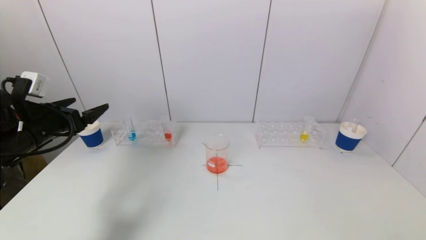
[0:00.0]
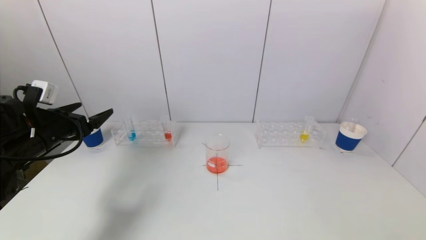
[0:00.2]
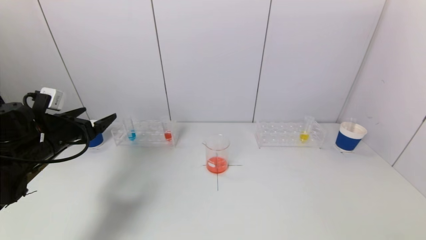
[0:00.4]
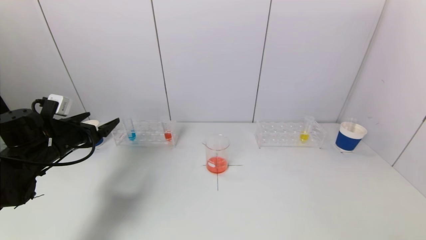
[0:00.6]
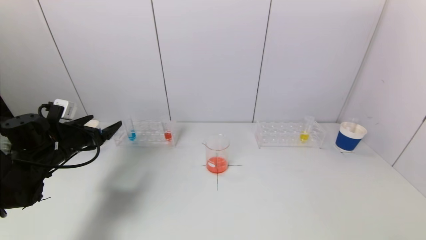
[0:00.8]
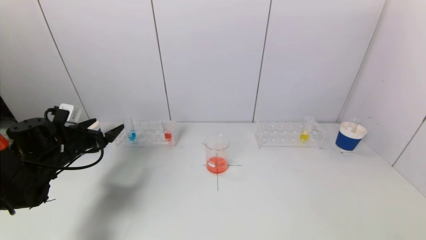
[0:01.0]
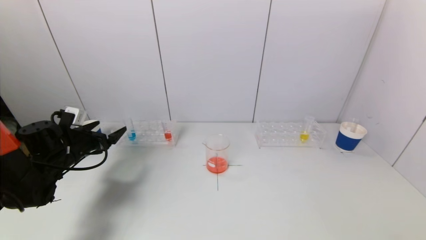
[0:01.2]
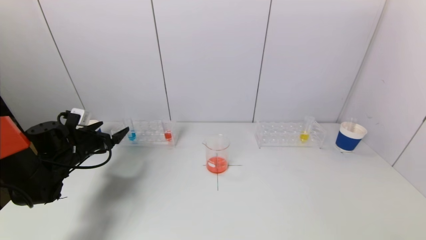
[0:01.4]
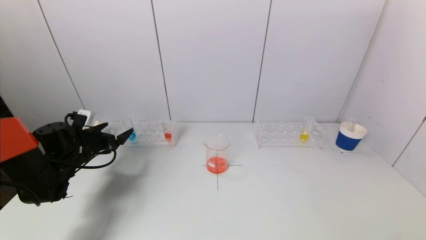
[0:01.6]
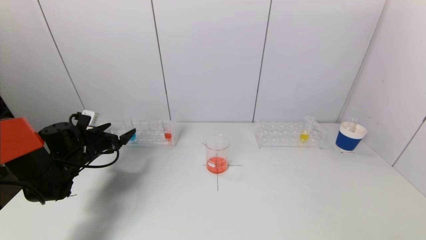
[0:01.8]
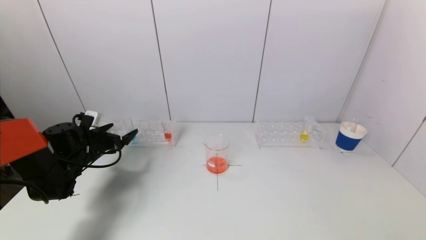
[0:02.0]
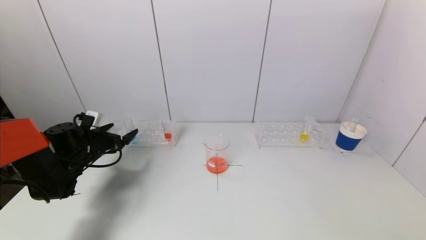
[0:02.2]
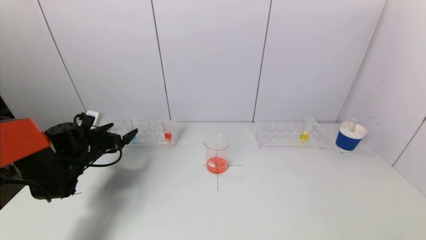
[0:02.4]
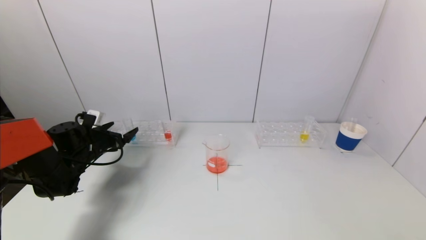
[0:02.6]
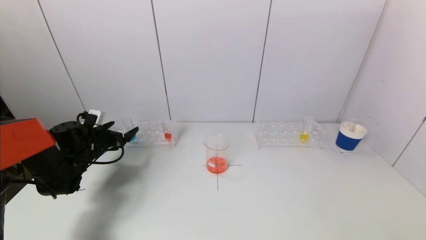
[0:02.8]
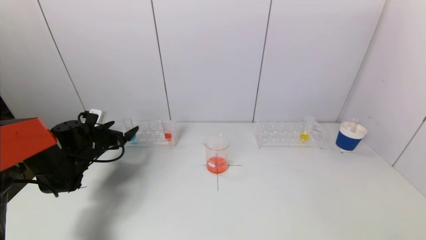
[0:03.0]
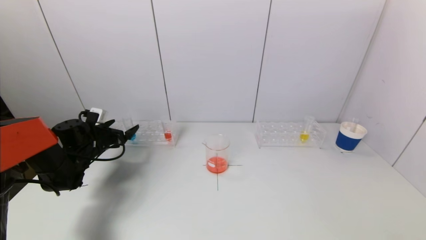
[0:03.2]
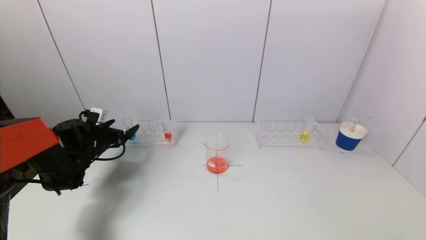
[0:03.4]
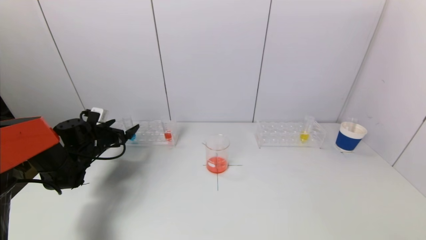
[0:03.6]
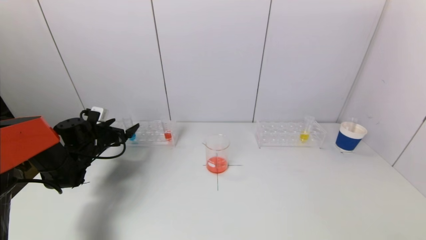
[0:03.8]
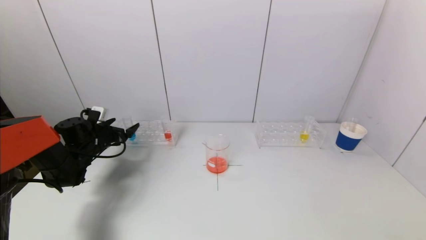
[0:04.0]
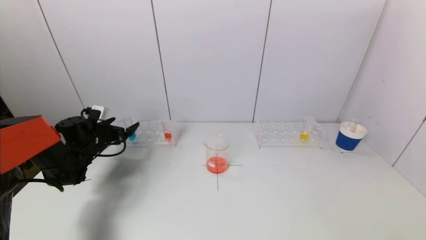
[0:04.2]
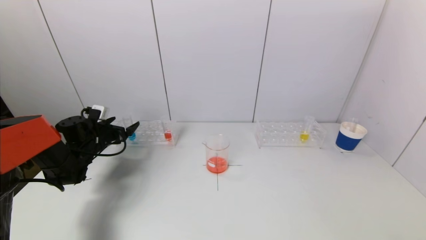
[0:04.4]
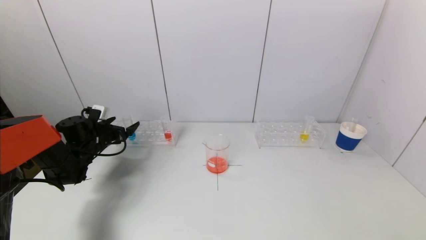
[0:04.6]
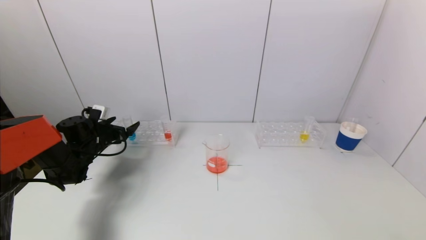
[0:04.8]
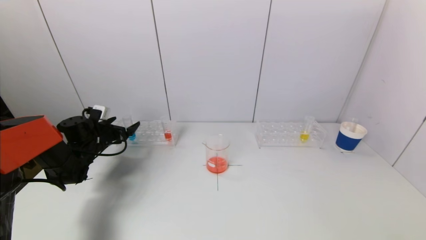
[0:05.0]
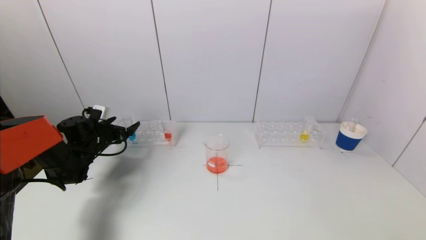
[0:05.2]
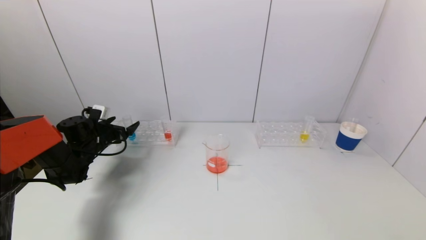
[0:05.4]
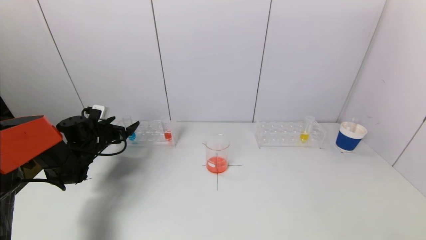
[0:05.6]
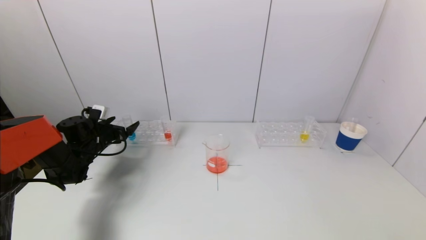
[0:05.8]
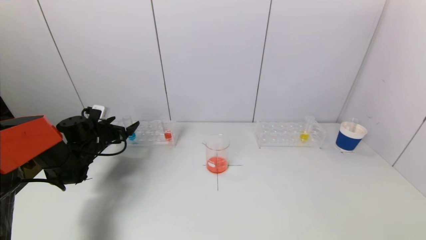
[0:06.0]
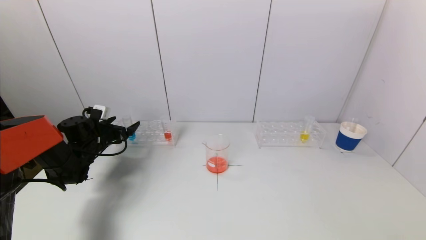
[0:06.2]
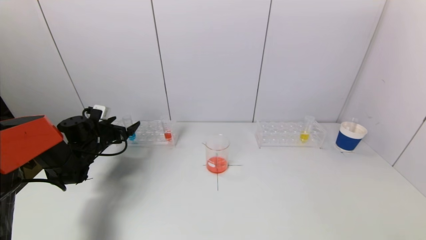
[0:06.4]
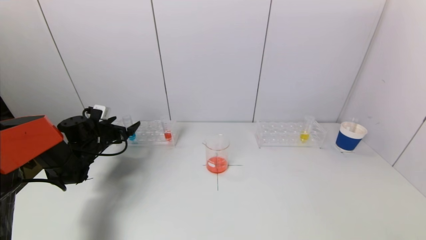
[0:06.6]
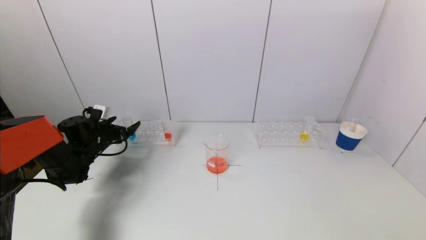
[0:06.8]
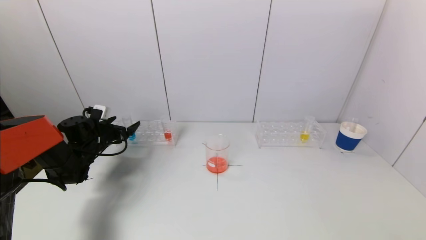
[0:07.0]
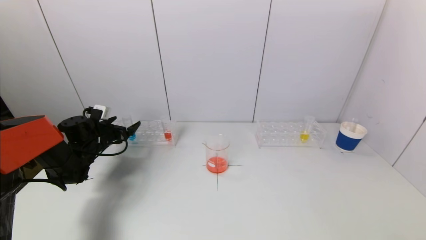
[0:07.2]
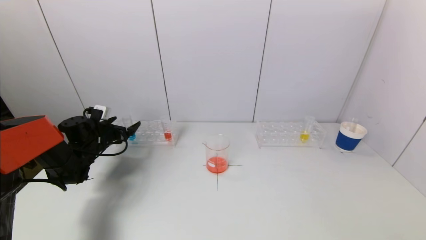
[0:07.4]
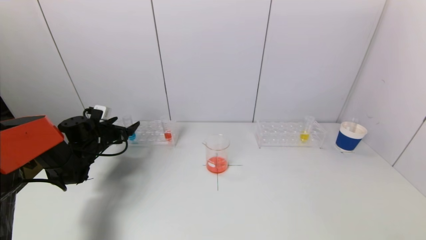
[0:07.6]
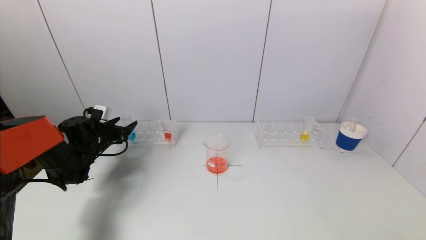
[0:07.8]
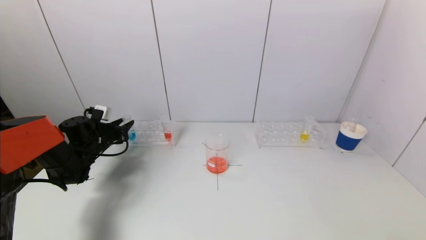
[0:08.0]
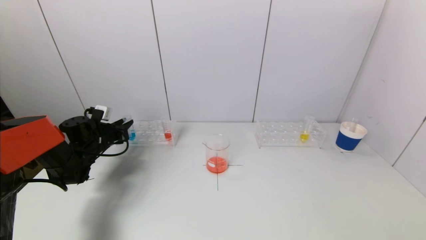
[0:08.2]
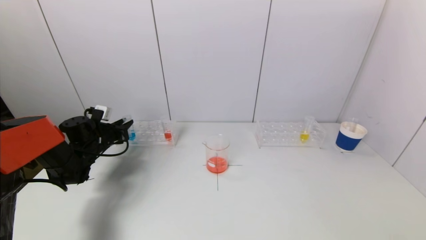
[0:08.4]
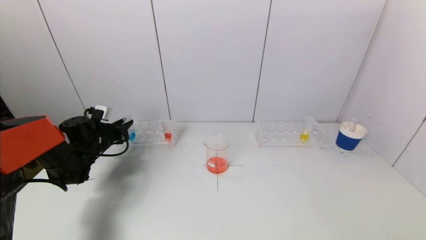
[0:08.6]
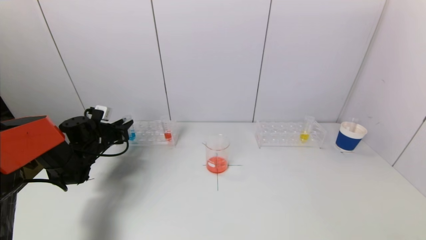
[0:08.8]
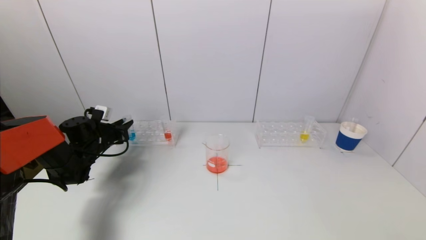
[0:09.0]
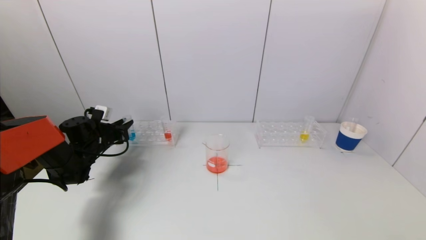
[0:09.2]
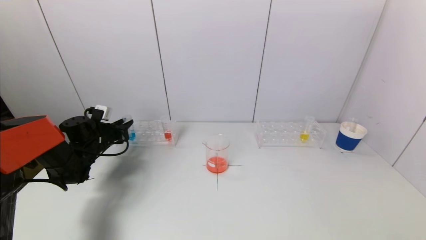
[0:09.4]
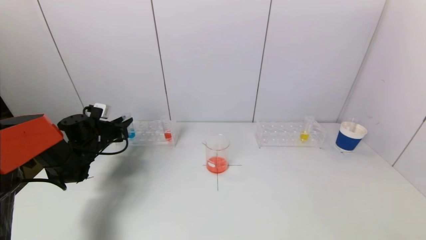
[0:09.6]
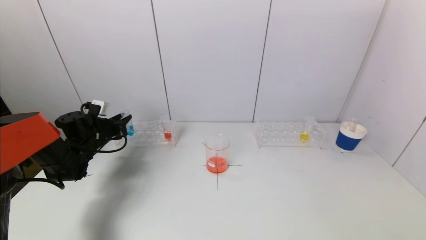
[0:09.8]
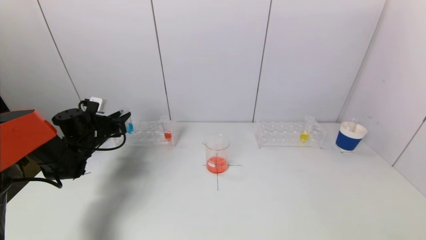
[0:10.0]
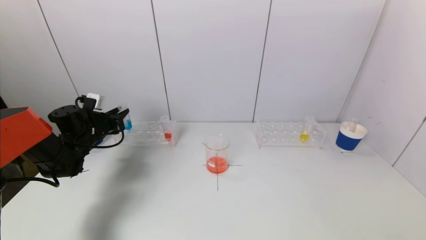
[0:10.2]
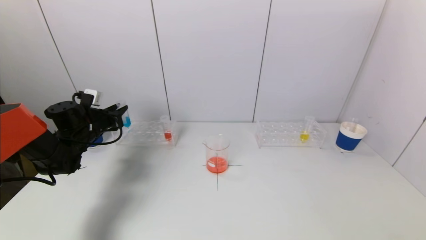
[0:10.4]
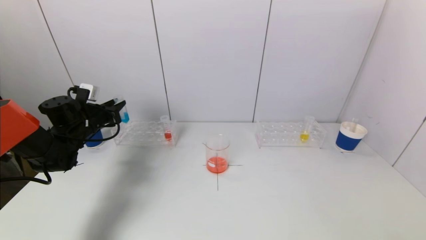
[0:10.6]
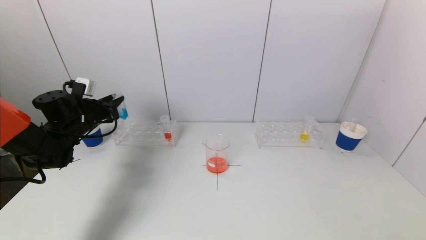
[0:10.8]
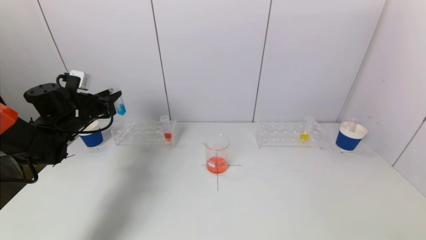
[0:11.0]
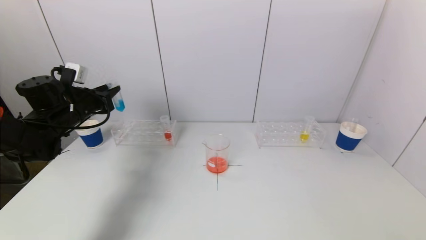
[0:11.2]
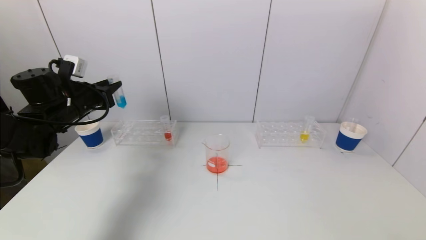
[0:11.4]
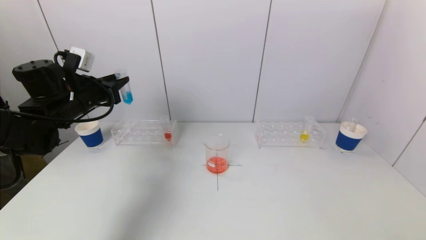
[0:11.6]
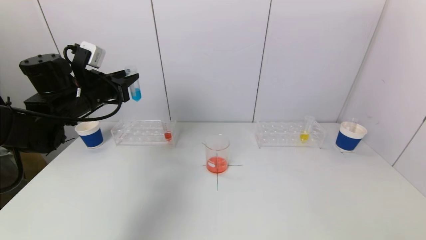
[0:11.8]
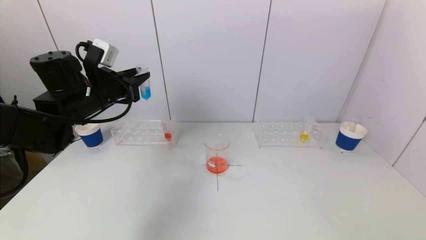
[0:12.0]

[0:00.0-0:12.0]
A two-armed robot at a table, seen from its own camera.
Task of the whole recording: pick up a test tube with pigment on left test tube rack and a test tube with pigment on right test tube rack by grippers and pour them into the beaker.
Step, 0:00.0 to 0:08.2: Grasp the blue reagent with the left gripper.
0:00.0 to 0:01.6: The left gripper travels downward and forward by about 15 cm.
0:01.6 to 0:04.4: There are only small adjustments of the grippers.
0:04.4 to 0:07.6: Both grippers stay about where they are.
0:07.6 to 0:09.0: The left gripper closes up.
0:09.0 to 0:10.4: The left gripper is displaced upward by approximately 5 cm.
0:10.4 to 0:12.0: The left gripper travels upward, to the right and backward by about 15 cm.

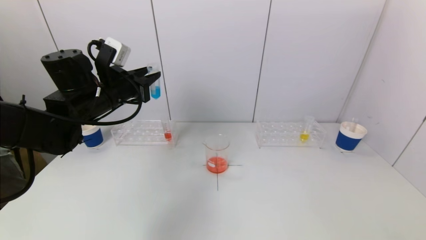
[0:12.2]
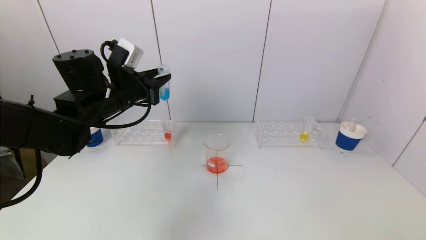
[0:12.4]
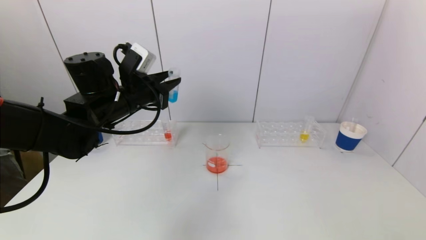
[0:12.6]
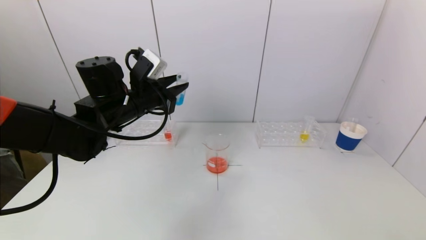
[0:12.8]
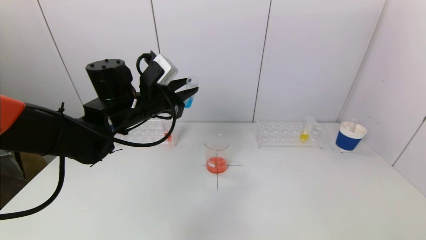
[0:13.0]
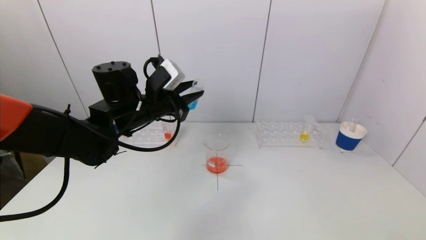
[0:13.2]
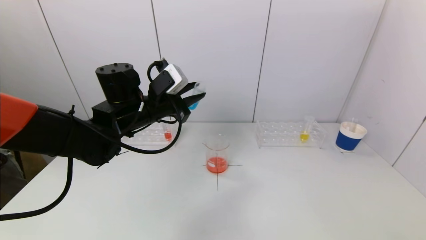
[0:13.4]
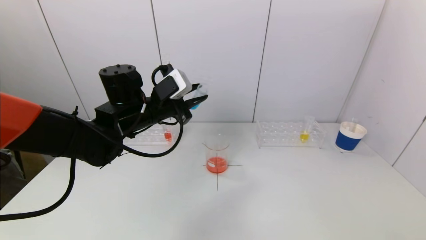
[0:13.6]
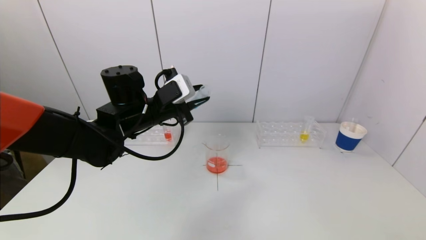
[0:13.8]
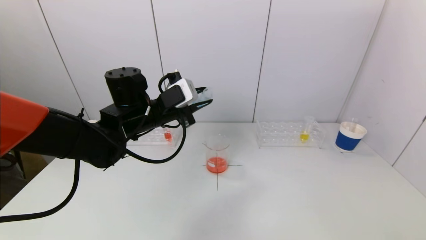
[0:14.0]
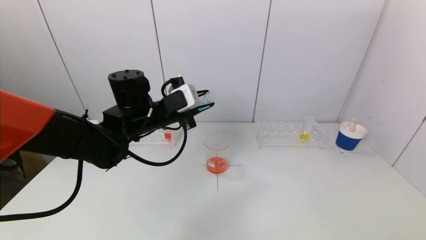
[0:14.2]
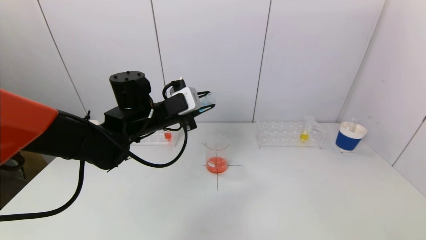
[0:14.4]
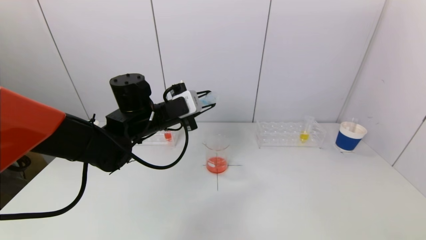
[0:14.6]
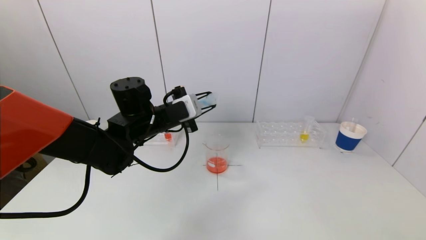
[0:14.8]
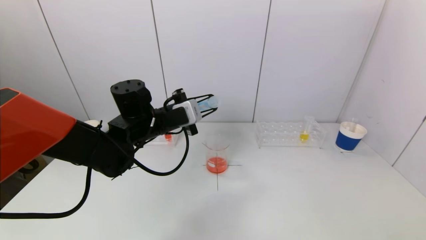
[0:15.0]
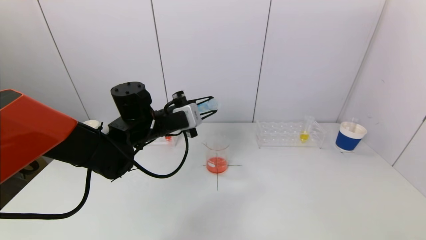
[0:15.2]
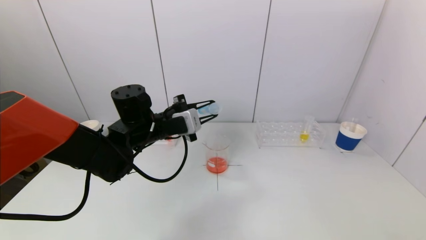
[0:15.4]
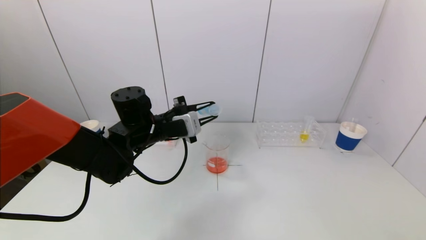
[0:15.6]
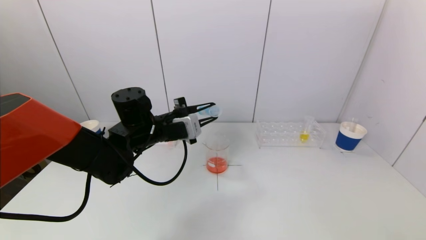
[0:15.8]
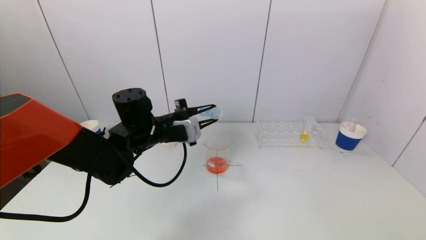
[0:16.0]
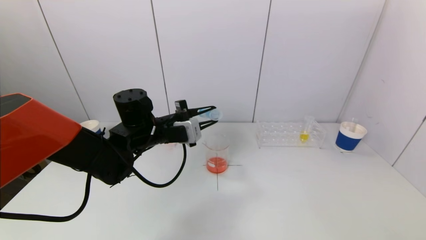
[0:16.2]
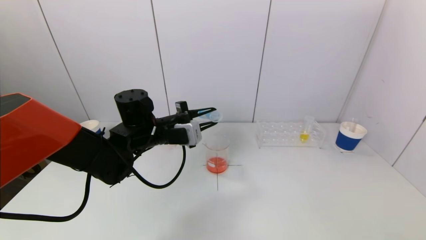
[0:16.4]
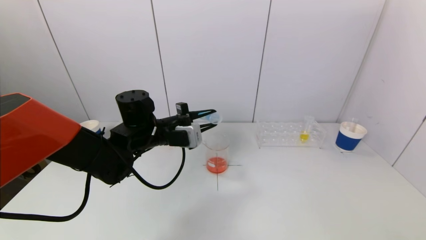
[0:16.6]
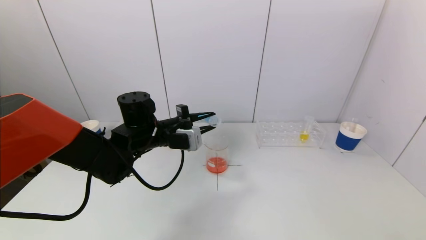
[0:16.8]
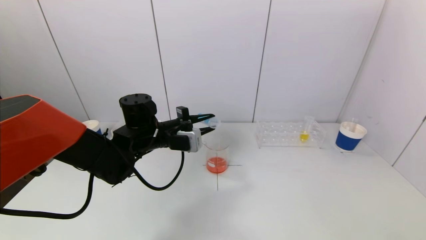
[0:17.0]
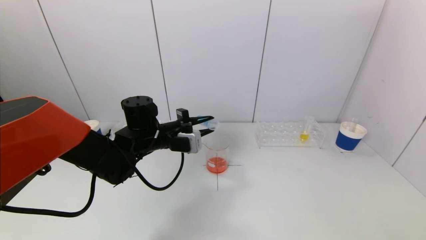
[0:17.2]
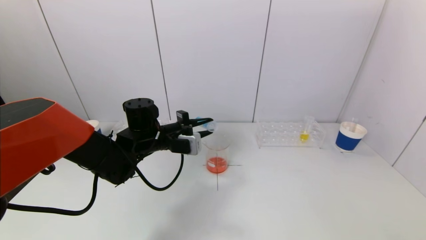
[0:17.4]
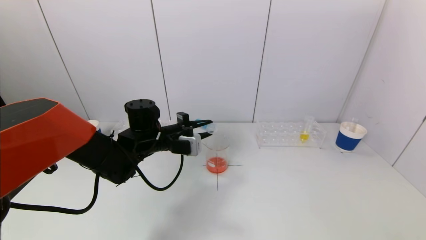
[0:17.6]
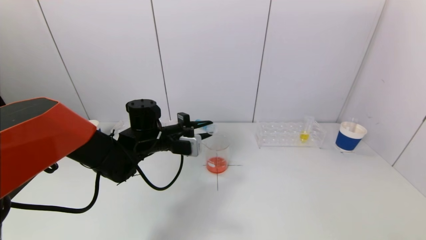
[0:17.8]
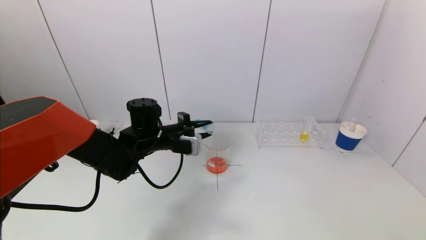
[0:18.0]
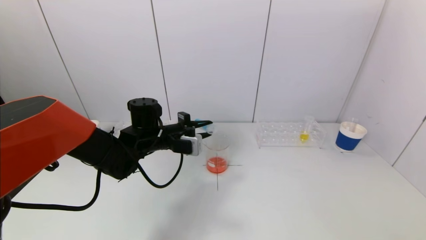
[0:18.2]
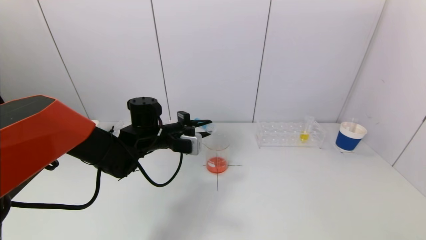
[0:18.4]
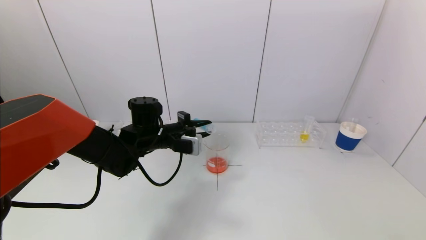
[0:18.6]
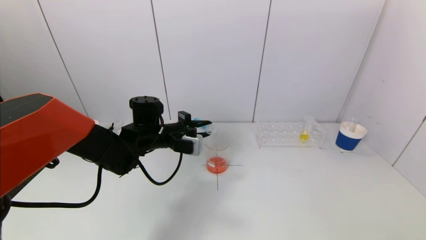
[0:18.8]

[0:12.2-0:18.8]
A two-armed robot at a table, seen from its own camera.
Task of the whole recording: pick up a test tube with pigment on left test tube rack and a test tube with pigment on right test tube rack by grippers and pour them into the beaker.
0:12.2 to 0:13.8: The left gripper is displaced to the right by approximately 10 cm.
0:13.8 to 0:15.4: The grippers stay close to where they were, moving slightly.
0:15.4 to 0:18.8: There are only small adjustments of the grippers.
